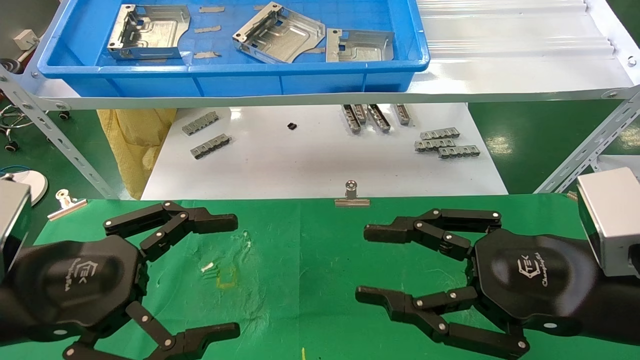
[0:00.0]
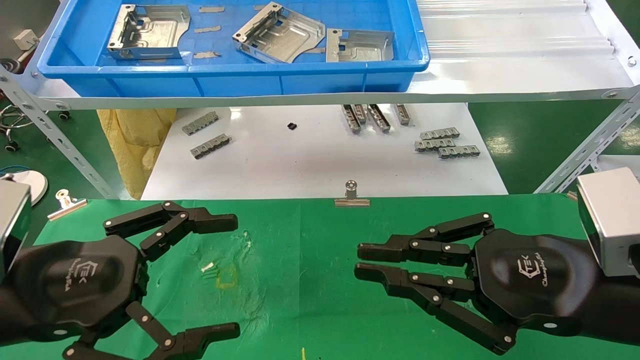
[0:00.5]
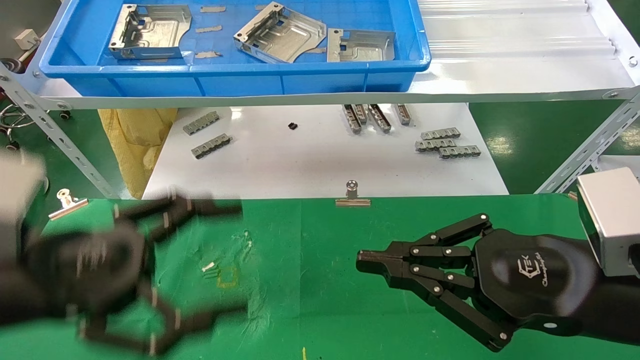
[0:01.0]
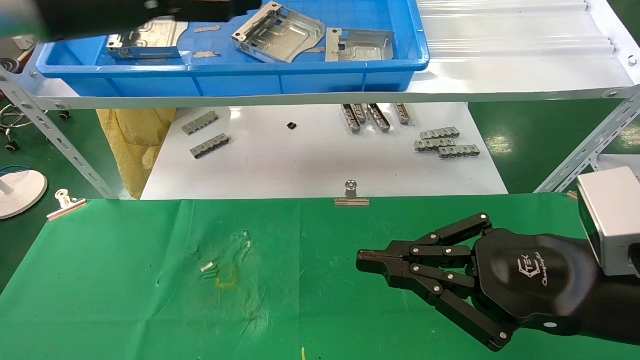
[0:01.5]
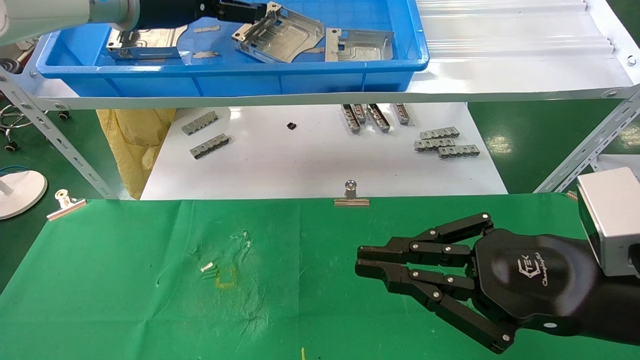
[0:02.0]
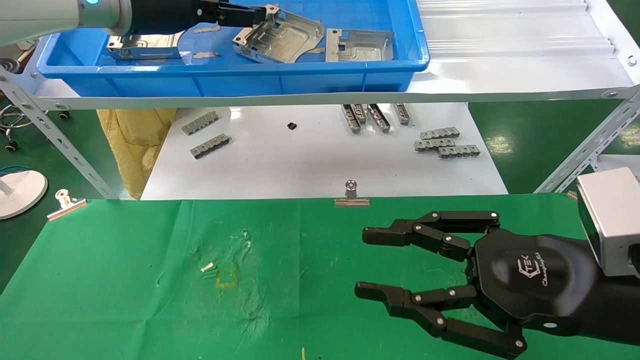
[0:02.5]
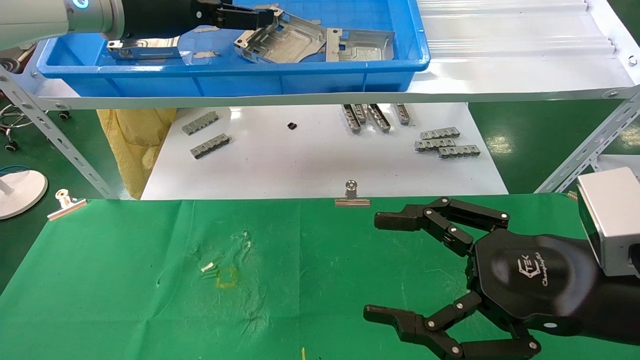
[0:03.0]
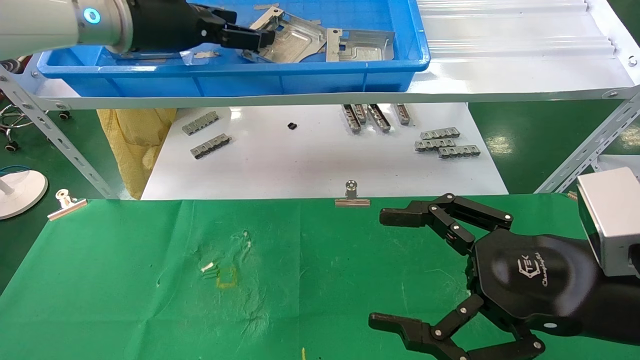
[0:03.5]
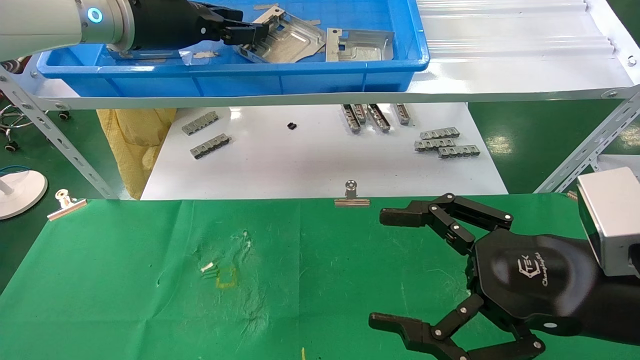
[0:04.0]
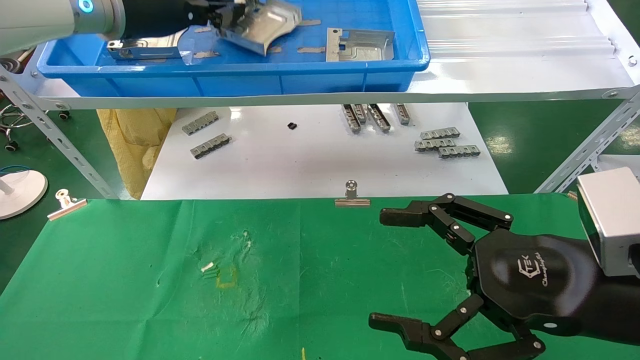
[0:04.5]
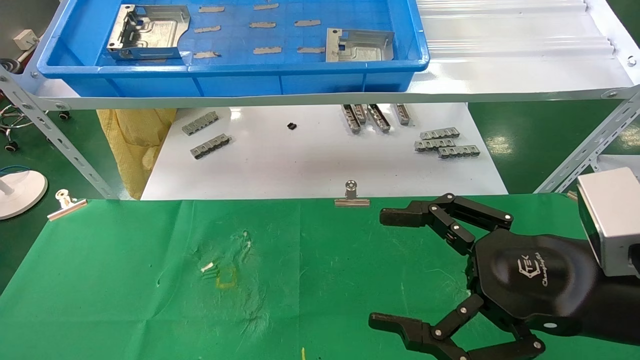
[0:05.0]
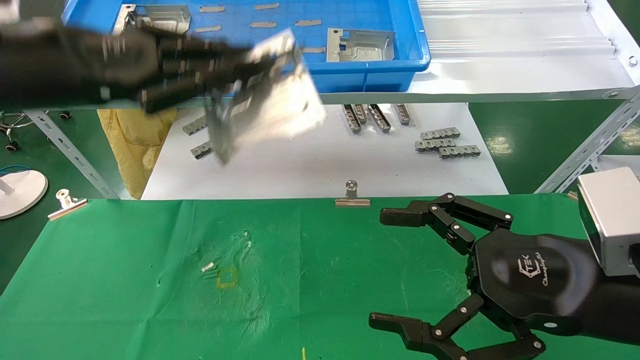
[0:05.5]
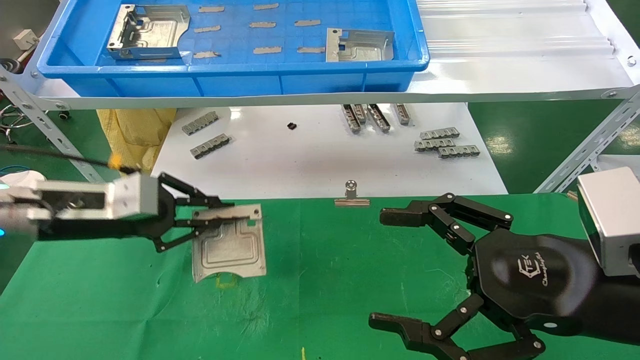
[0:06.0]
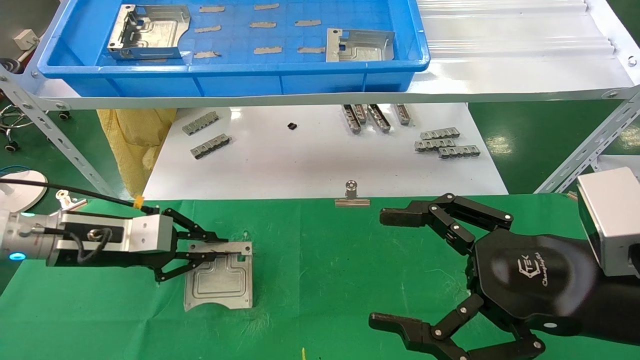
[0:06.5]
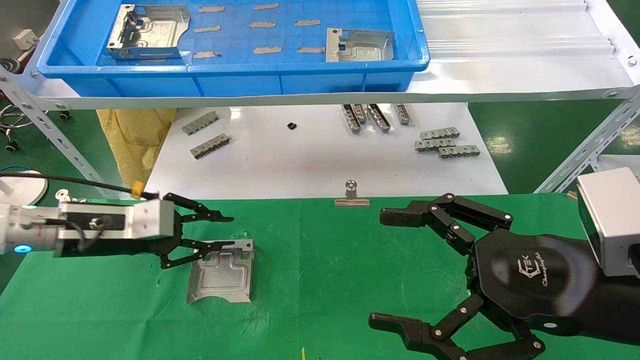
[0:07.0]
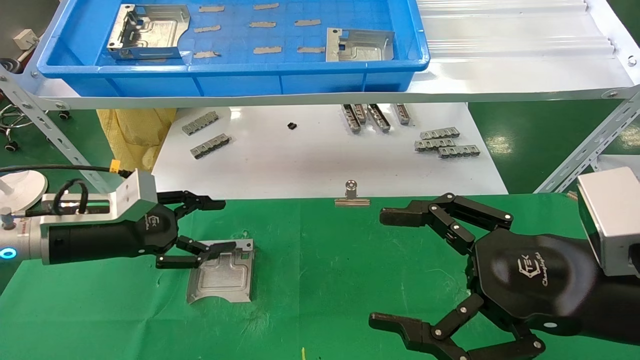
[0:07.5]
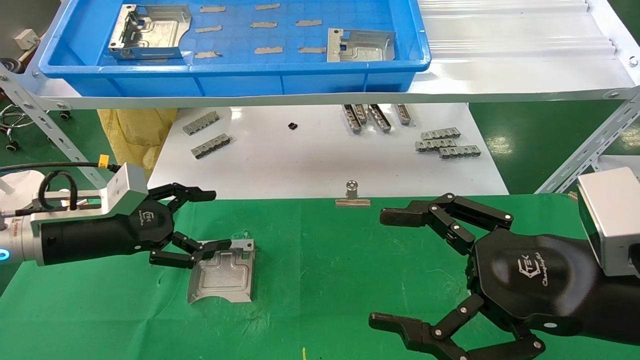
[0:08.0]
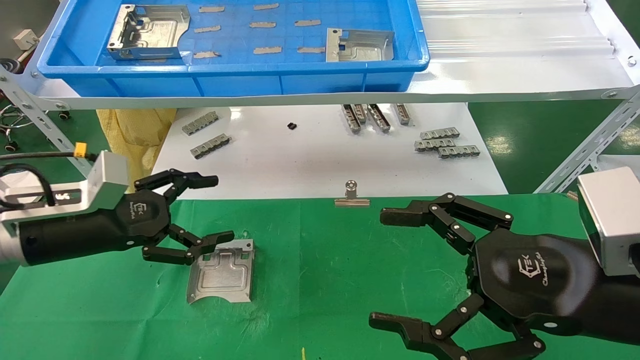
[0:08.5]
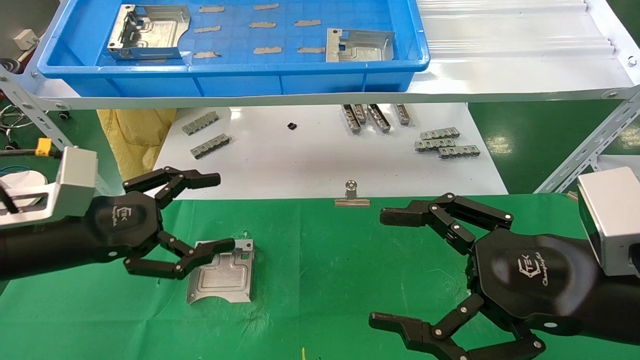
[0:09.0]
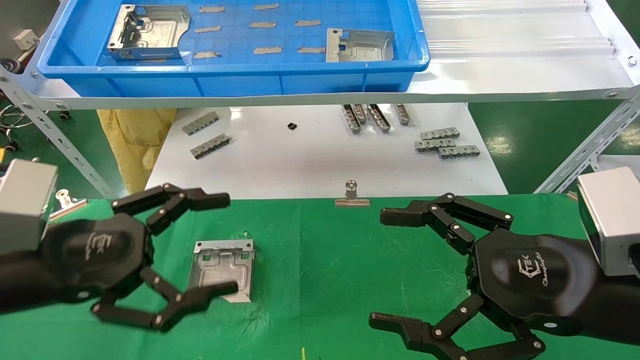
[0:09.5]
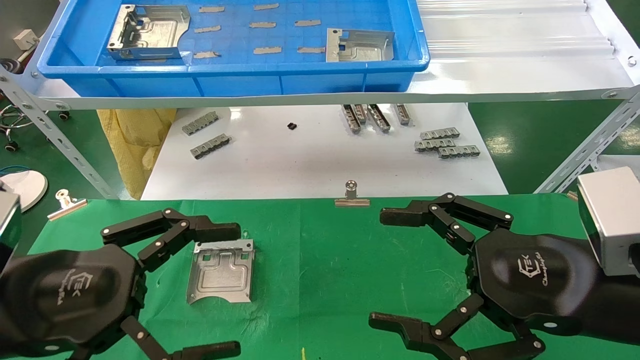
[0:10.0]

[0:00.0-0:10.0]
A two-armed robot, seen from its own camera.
Task of the whole recording: use the mechanical arm to pick up the parts and place them on the table.
Step, 0:01.5 to 0:04.5: Pick up the hard drive bracket from the feeding area.
Step, 0:05.0 to 0:08.0: Place the hard drive bracket into the box.
0:00.0 to 0:02.0: The right gripper closes up, while the left gripper is displaced upward and forward by some 35 cm.
0:02.0 to 0:04.0: The left gripper closes its fingers, while the right gripper opens.
0:04.0 to 0:06.0: The left gripper is displaced downward and to the left by about 25 cm, and closes up.
0:06.0 to 0:08.0: The left gripper opens up.
0:08.0 to 0:10.0: The left gripper goes some 15 cm backward.
